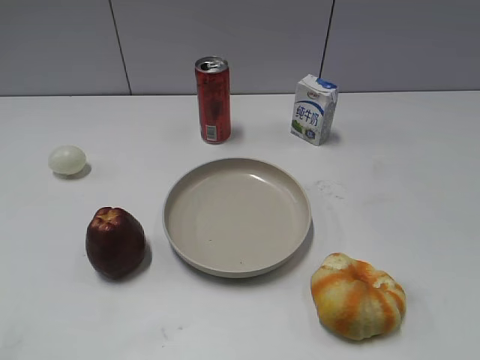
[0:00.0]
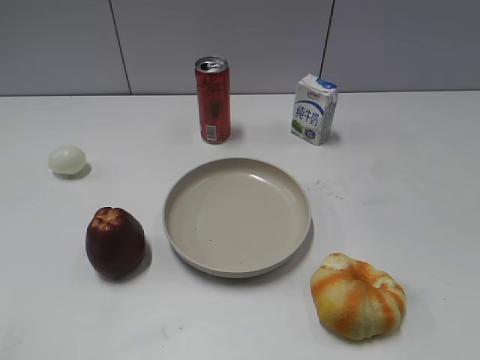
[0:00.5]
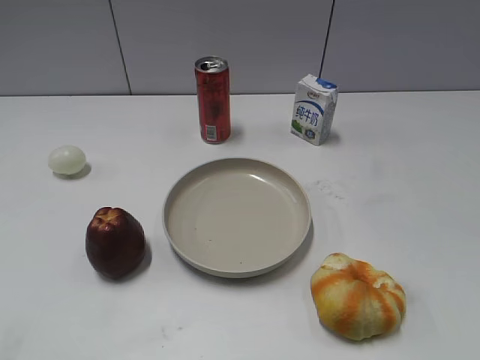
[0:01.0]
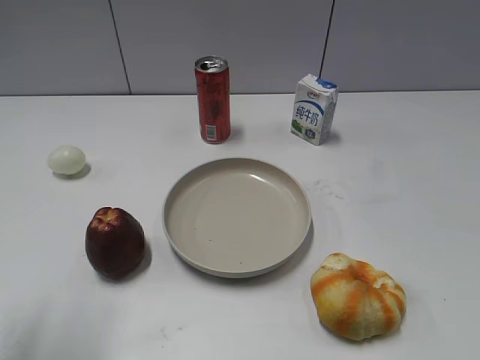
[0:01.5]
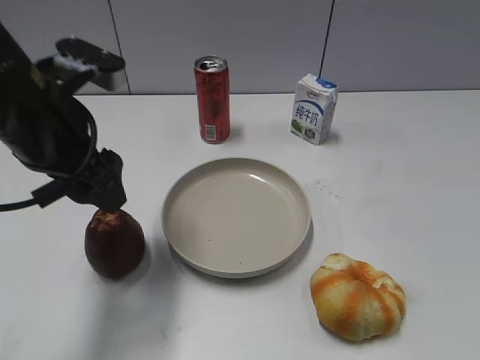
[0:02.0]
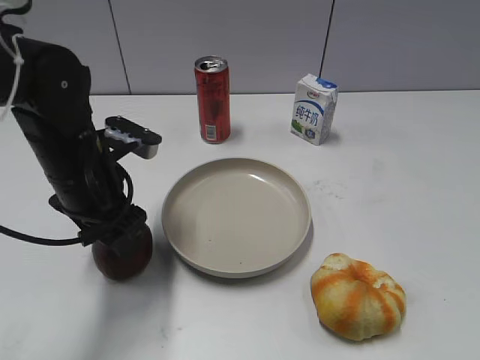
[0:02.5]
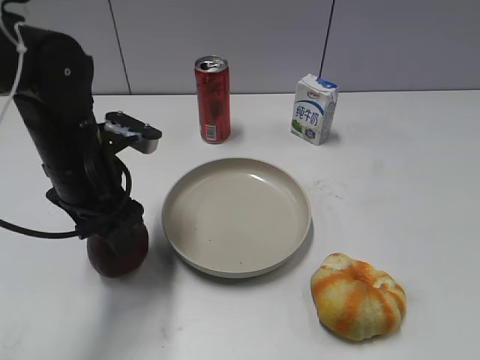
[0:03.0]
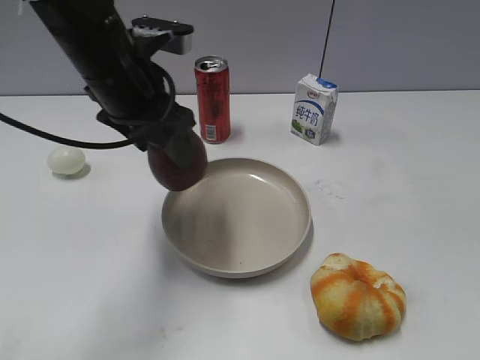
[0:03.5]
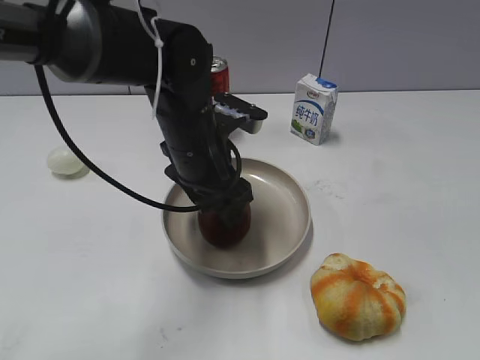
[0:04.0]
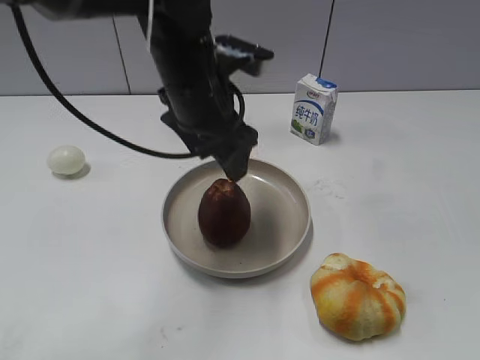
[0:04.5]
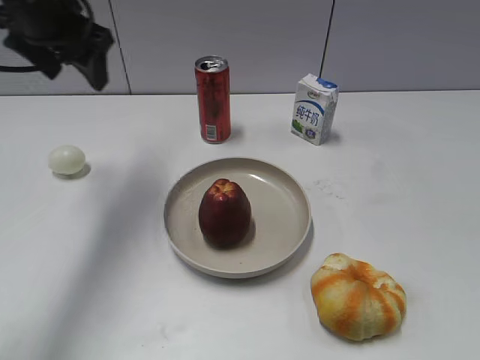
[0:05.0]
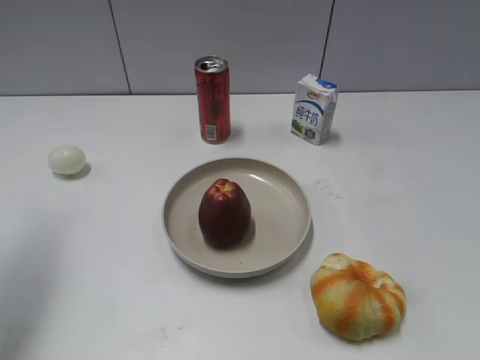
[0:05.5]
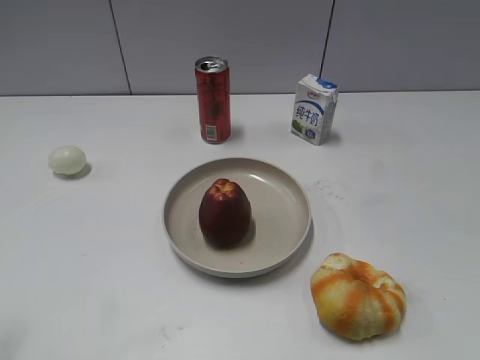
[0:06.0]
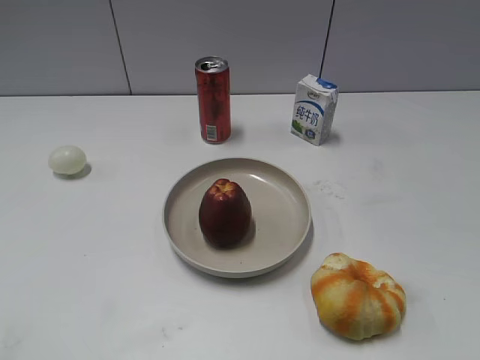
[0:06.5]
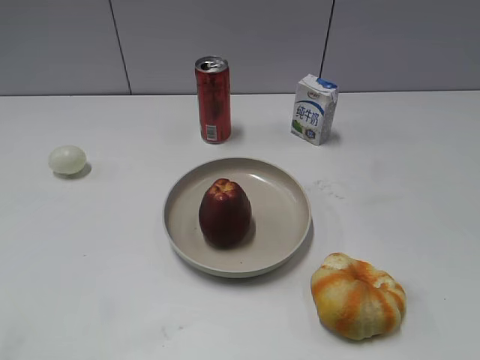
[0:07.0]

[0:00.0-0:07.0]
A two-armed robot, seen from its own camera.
Step, 0:02.0 to 0:02.5: Grasp the apple with left gripper.
Step, 0:03.5 to 0:04.5: Place the apple on the plate with left gripper.
0:02.0 to 0:03.5: The left gripper moves forward and to the right, roughly 10 cm, and travels downward and back again, roughly 10 cm each way.
0:03.5 to 0:05.0: The left gripper shifts approximately 15 cm to the left, forward and upward, and opens its fingers.
0:05.0 to 0:07.0: The left gripper shifts roughly 40 cm backward.
